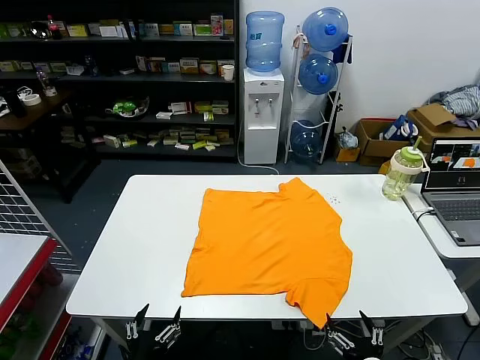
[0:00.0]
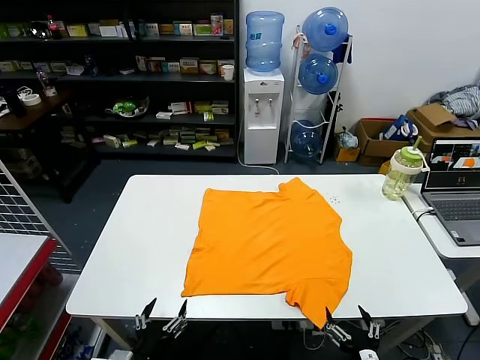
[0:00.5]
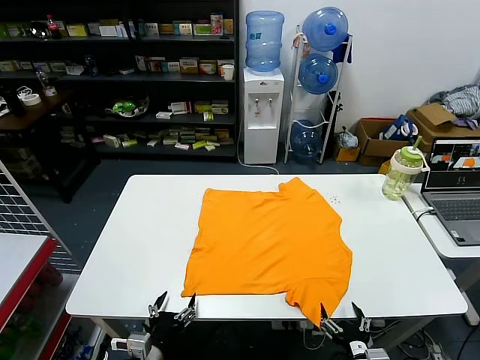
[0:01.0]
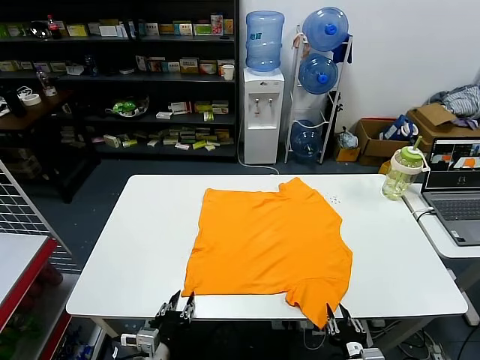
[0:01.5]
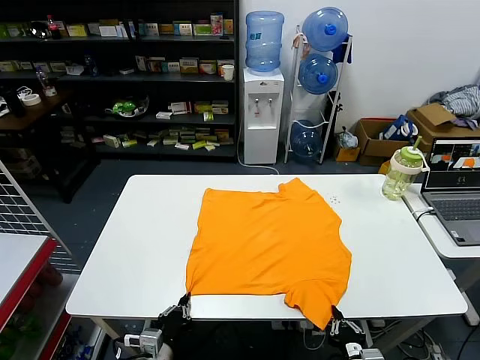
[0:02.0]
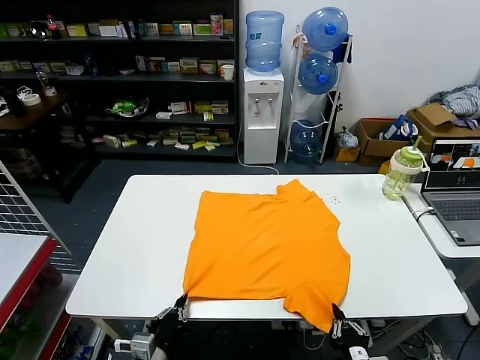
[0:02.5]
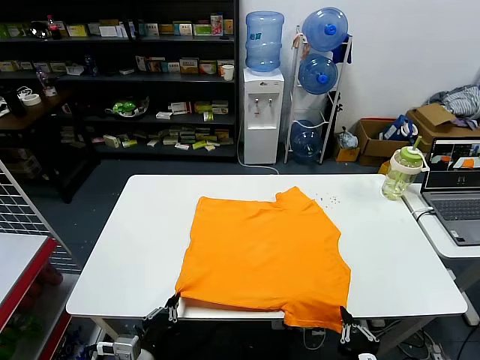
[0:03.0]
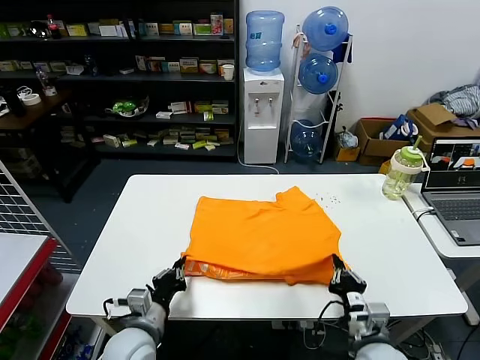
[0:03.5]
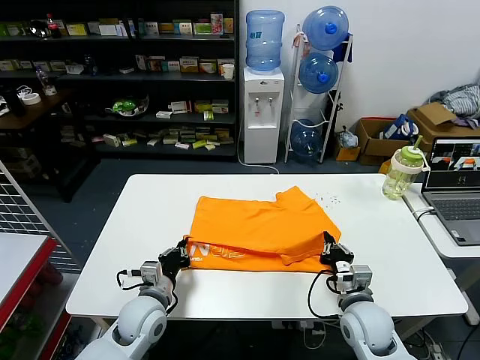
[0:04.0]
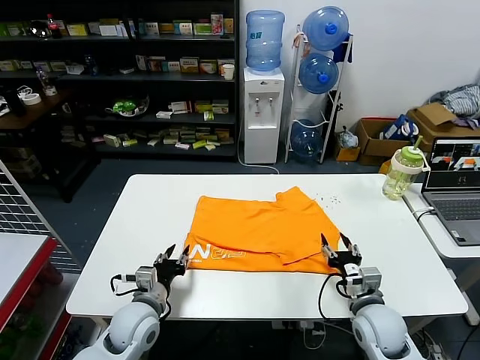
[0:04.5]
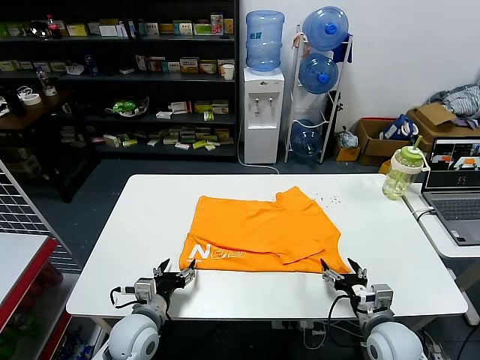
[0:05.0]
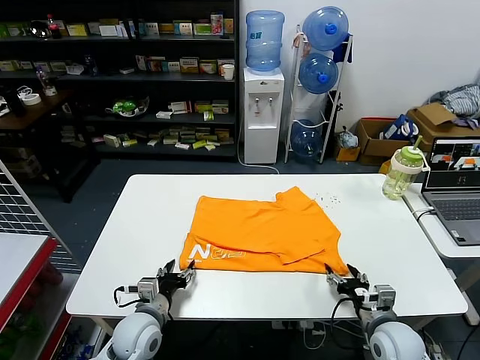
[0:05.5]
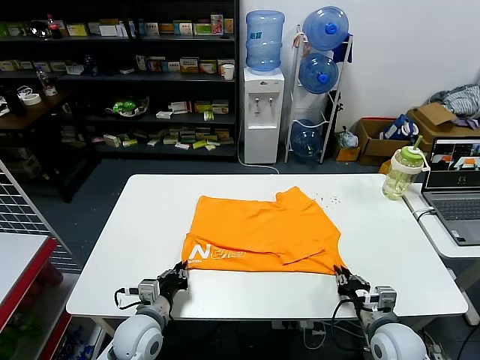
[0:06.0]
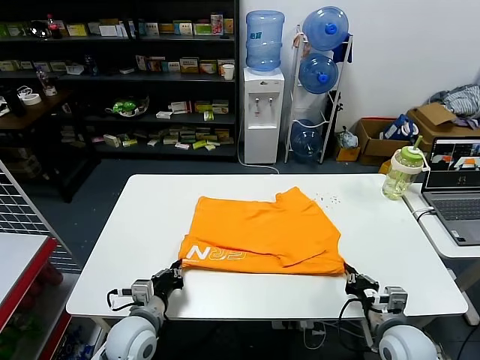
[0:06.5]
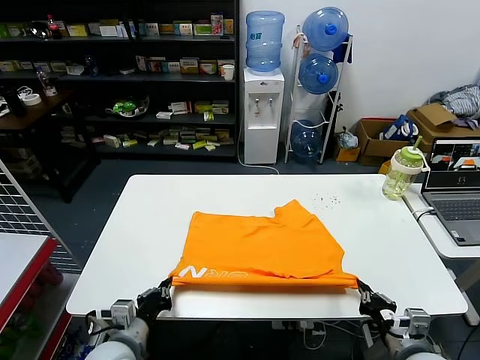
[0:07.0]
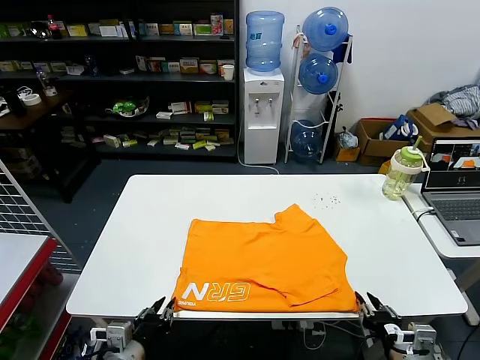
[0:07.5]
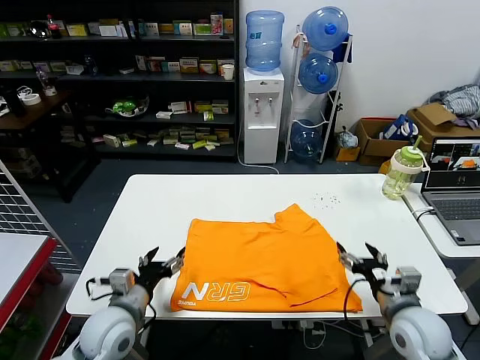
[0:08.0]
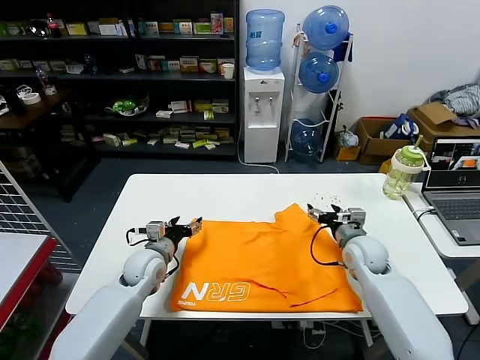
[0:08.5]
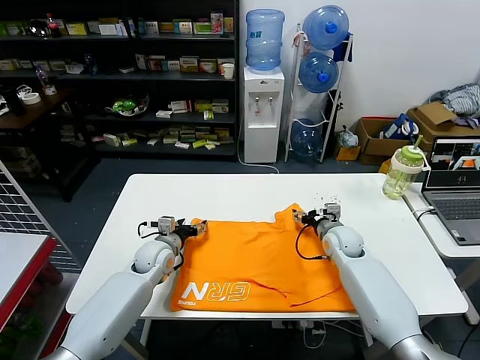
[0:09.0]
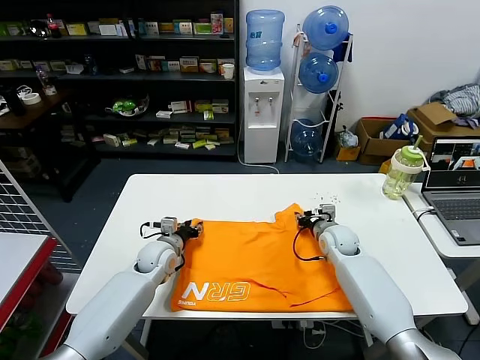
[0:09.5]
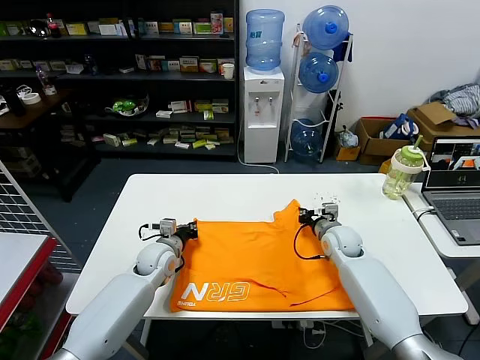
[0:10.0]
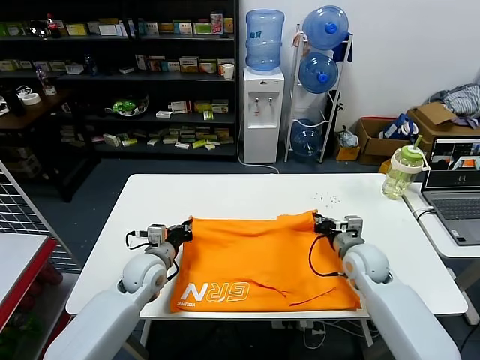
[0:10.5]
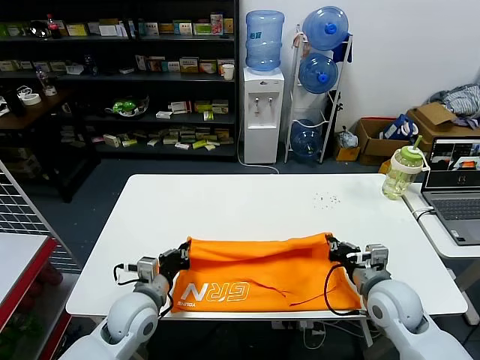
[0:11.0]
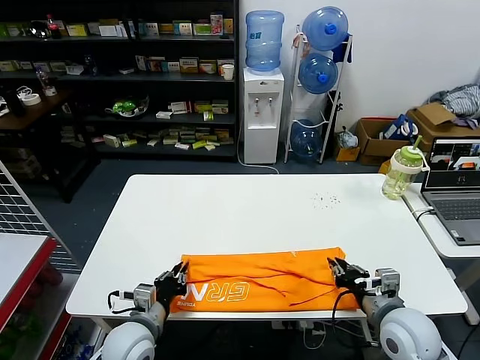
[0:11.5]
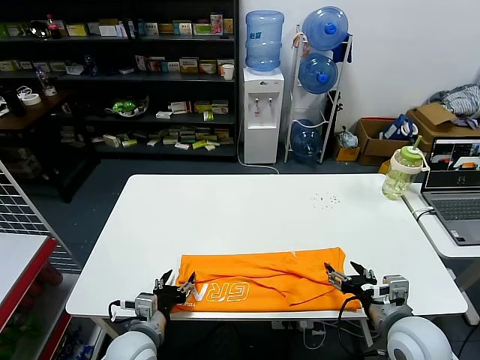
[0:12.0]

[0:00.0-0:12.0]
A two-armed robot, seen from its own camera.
Task of the whole recording: fold and organize the clothes.
Step, 0:00.0 to 0:01.5: use both grippers simultaneously to clamp the lower edge of the clothing fabric.
Step, 0:02.0 to 0:04.0: use both grippers to drag the lower edge of the fabric forward and fold it over the upper edge.
Step, 0:04.5 to 0:07.0: Drag the clothes downward with both gripper.
Step, 0:07.5 to 0:09.5: use both grippers simultaneously to clamp the upper edge of the clothing fabric.
Step, 0:10.0 to 0:11.5: use both grippers to drag the upper edge of the fabric backward and fold it over the lower edge.
0:02.0 to 0:04.0: The grippers both shift forward by approximately 15 cm.
0:04.0 to 0:06.0: The left gripper opens, then closes once more; the right gripper is displaced to the right by roughly 5 cm, and opens, then closes once more.
0:06.0 to 0:08.0: Both grippers move upward, some 10 cm. The left gripper moves roughly 10 cm backward and comes back, and opens its fingers; the right gripper travels backward and back again, approximately 10 cm each way, and opens up.
0:08.0 to 0:10.0: Both grippers travel together forward, approximately 25 cm. The left gripper closes up. Meanwhile the right gripper closes its fingers.
0:10.0 to 0:12.0: The two grippers go approximately 25 cm backward. The left gripper opens its fingers. Meanwhile the right gripper opens up.

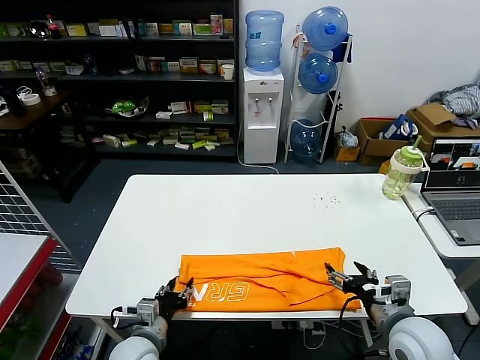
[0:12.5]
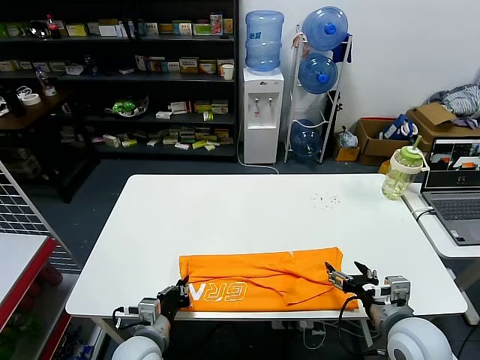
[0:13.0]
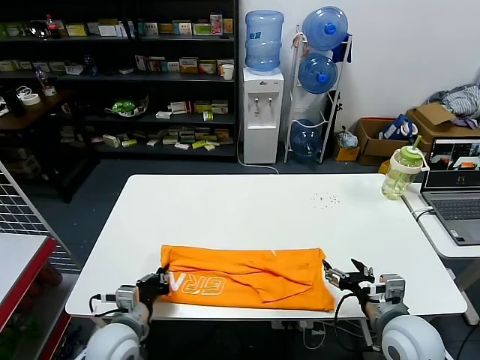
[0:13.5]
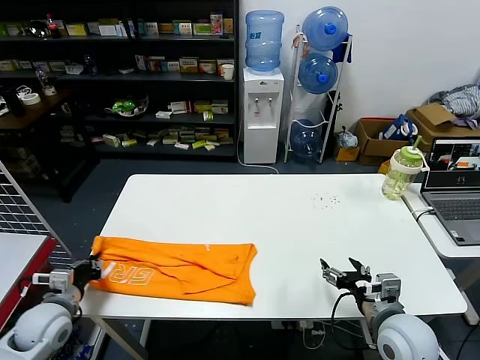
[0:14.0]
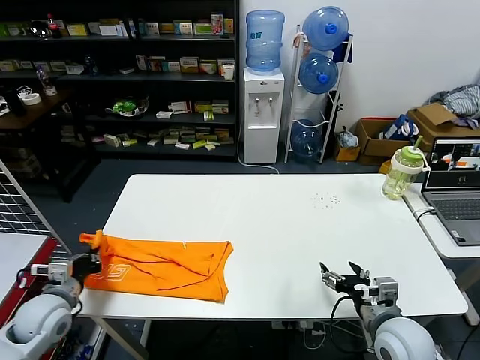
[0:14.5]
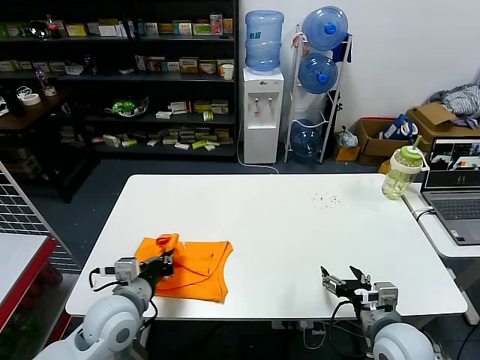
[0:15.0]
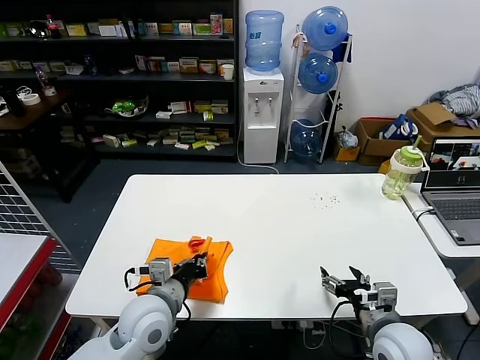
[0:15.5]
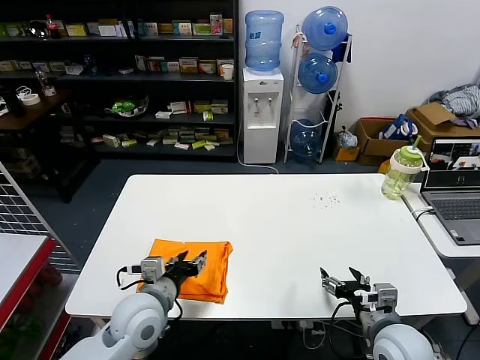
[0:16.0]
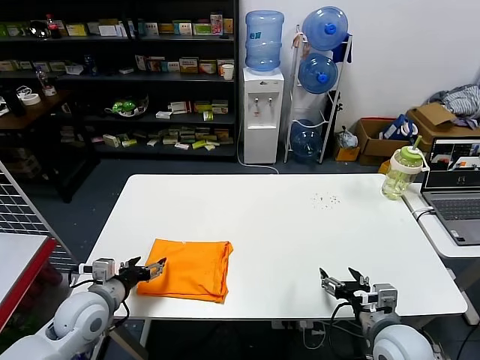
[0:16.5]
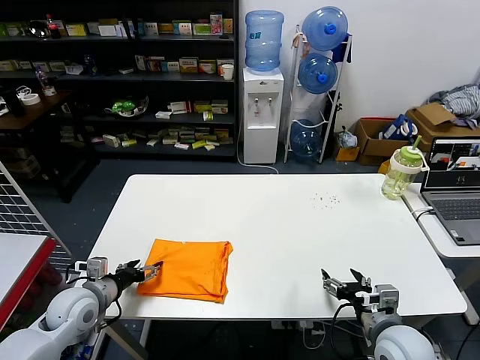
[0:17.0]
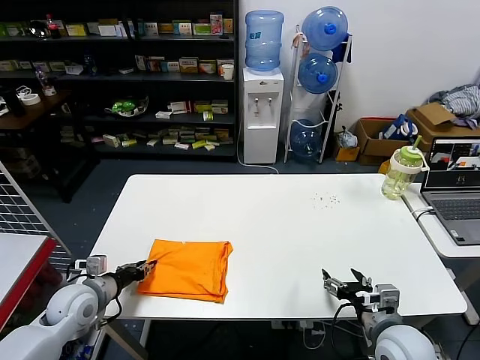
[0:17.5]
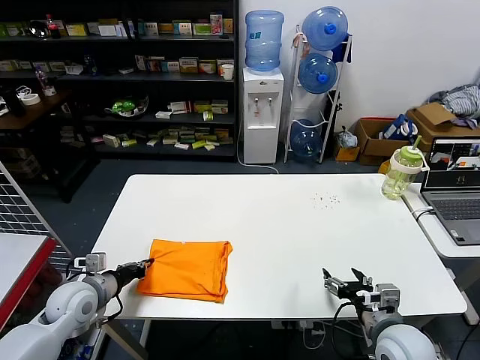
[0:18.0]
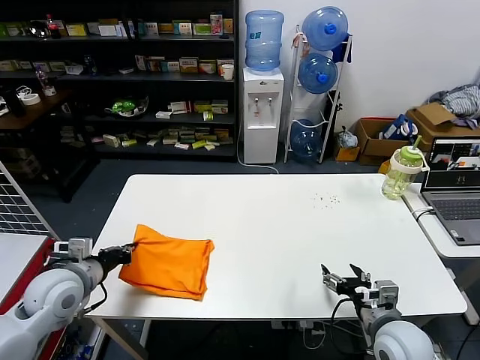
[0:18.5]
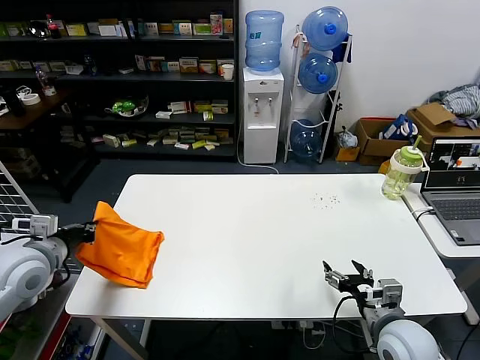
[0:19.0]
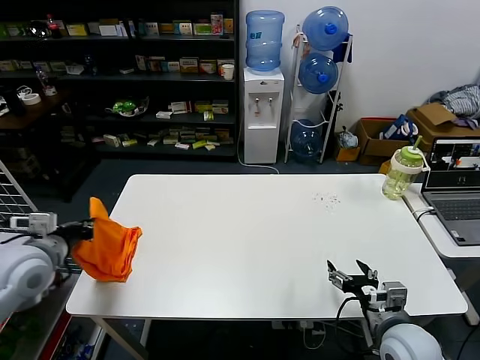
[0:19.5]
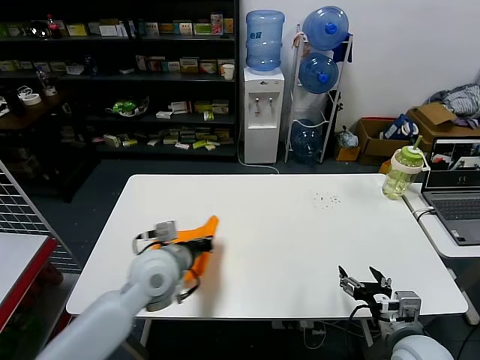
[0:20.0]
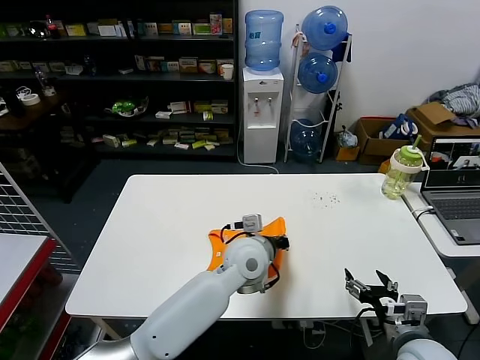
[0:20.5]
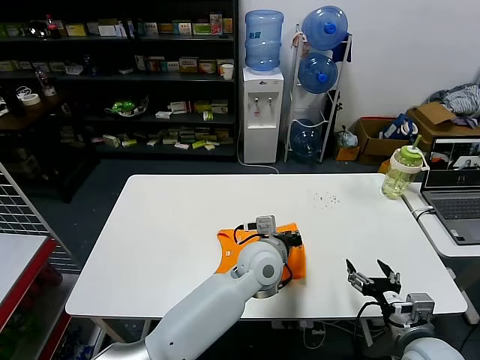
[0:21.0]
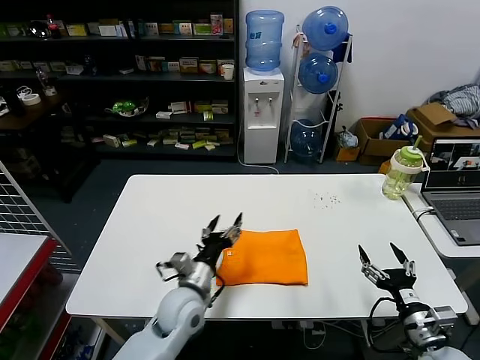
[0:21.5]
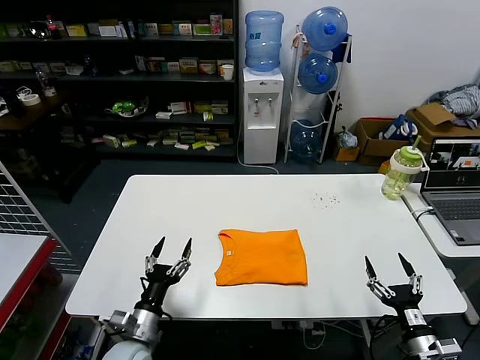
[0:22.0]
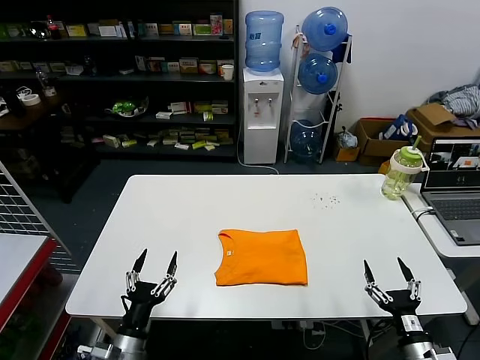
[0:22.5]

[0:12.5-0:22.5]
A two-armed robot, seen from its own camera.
Task of the whole recording: fold and organize the clothes.
Step, 0:13.5 to 0:15.5: use the left gripper to drag the left edge of the fabric to the left and folds it over the right edge.
Step, 0:16.0 to 0:21.0: Flip the folded clothes over with left gripper.
0:12.5 to 0:14.5: The left gripper moves to the left, roughly 20 cm, and closes.
0:14.5 to 0:16.5: The left gripper shifts some 10 cm to the right, and opens its fingers.
0:16.5 to 0:18.5: The left gripper is displaced upward by roughly 5 cm, and closes.
0:18.5 to 0:20.5: The left gripper heads to the right, covering roughly 35 cm.
0:20.5 to 0:22.5: The right gripper heads downward and to the right, covering some 10 cm; the left gripper shifts roughly 35 cm to the left, backward and downward, and opens up.
